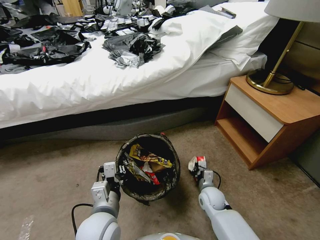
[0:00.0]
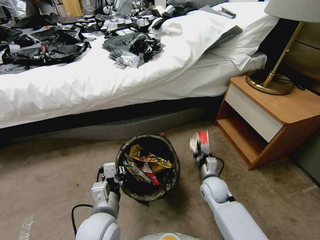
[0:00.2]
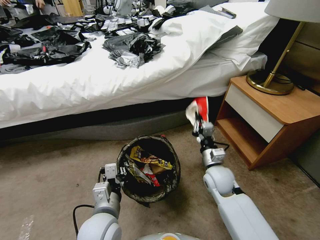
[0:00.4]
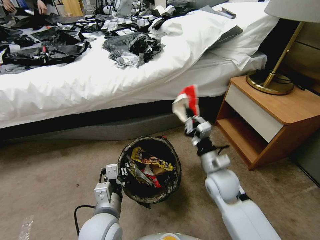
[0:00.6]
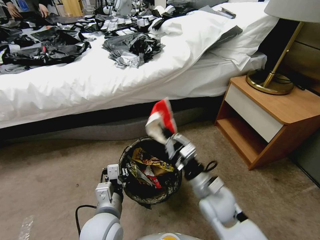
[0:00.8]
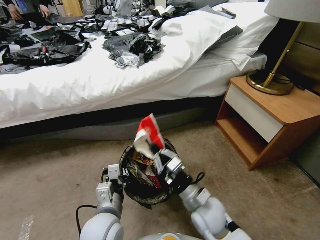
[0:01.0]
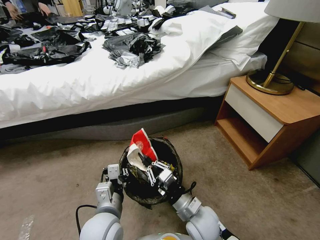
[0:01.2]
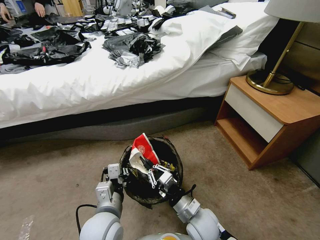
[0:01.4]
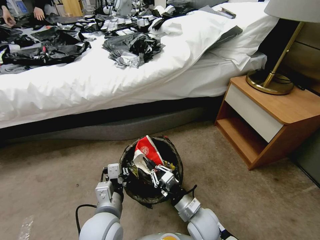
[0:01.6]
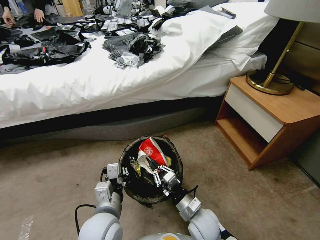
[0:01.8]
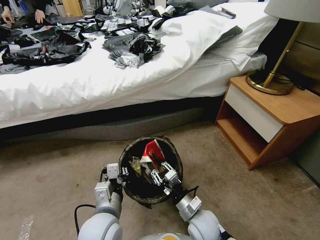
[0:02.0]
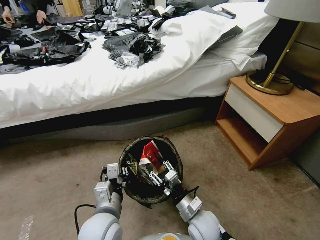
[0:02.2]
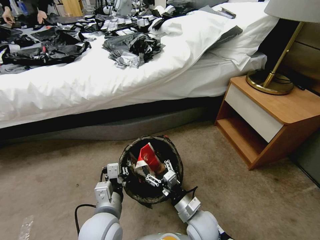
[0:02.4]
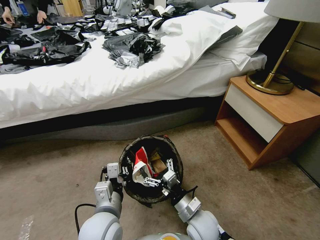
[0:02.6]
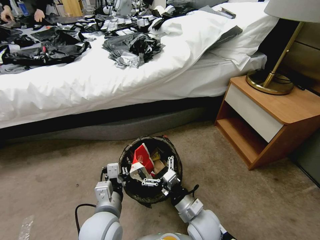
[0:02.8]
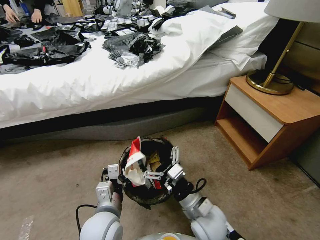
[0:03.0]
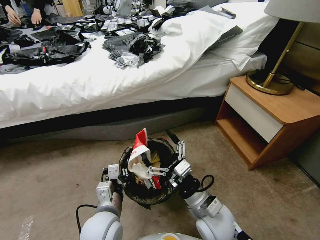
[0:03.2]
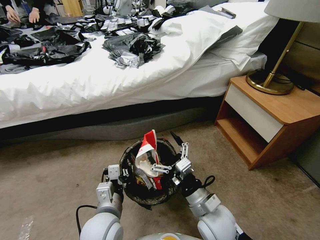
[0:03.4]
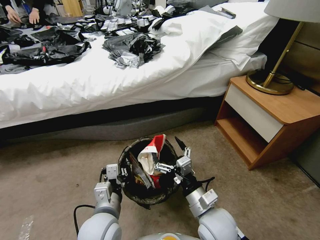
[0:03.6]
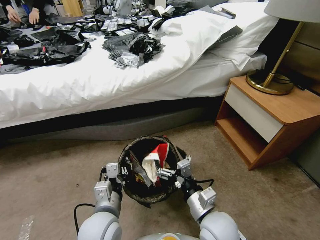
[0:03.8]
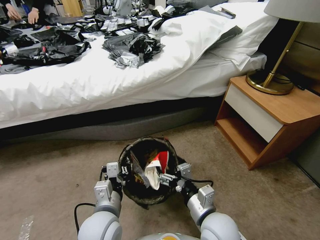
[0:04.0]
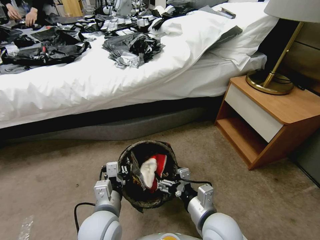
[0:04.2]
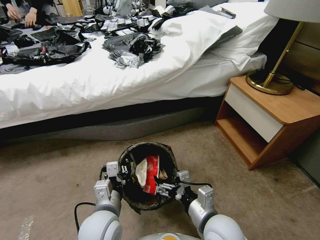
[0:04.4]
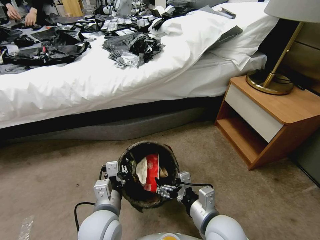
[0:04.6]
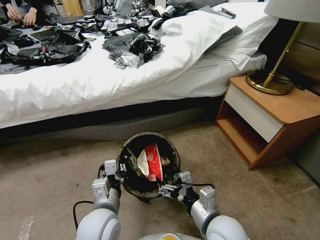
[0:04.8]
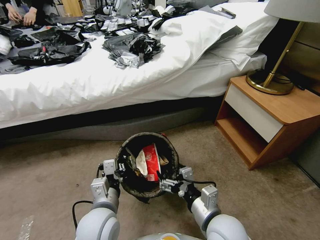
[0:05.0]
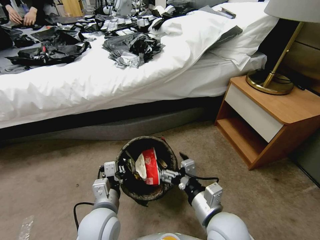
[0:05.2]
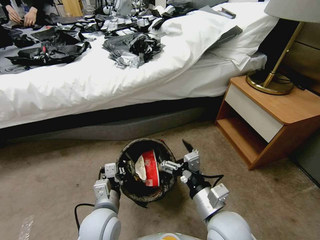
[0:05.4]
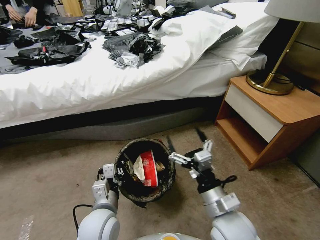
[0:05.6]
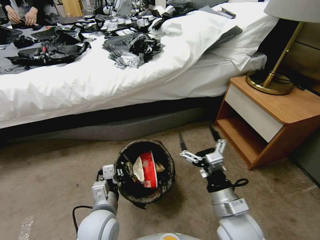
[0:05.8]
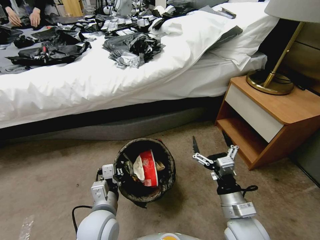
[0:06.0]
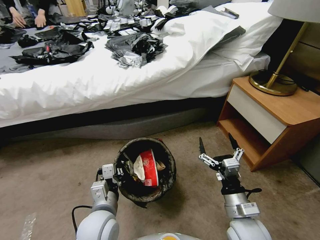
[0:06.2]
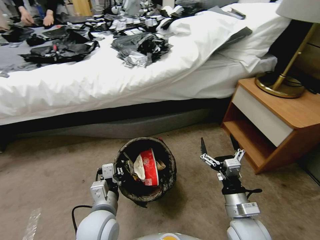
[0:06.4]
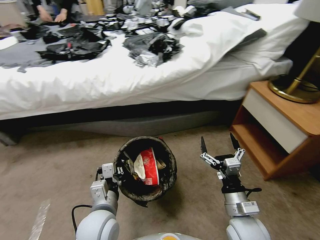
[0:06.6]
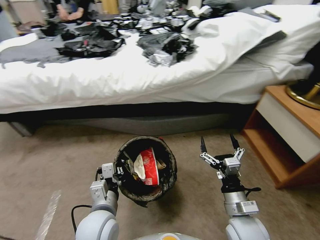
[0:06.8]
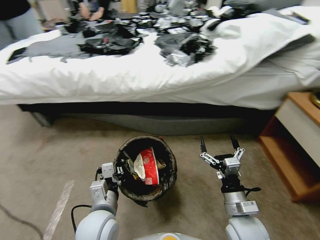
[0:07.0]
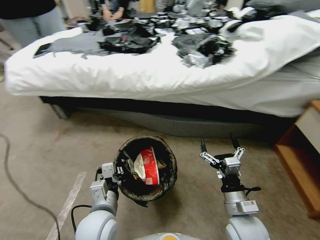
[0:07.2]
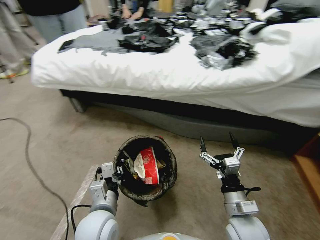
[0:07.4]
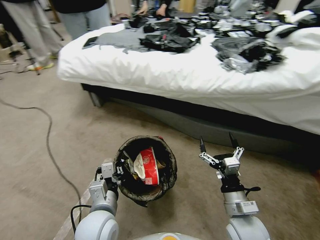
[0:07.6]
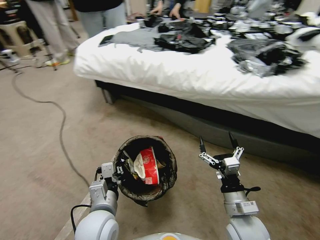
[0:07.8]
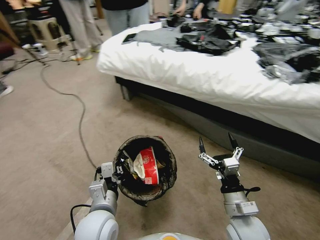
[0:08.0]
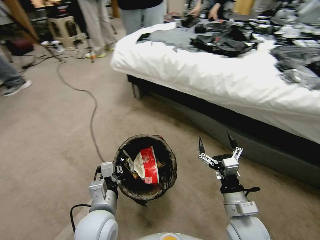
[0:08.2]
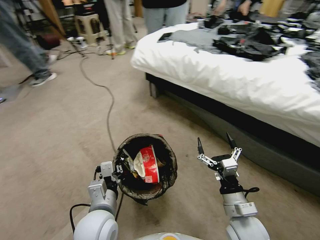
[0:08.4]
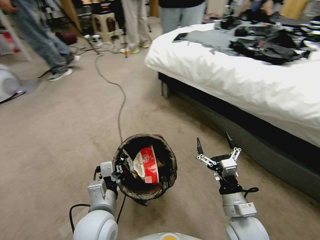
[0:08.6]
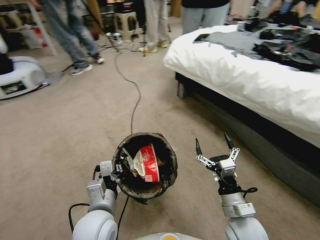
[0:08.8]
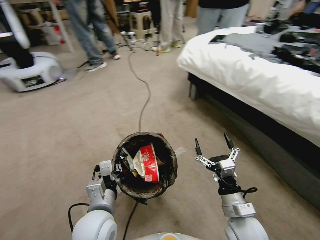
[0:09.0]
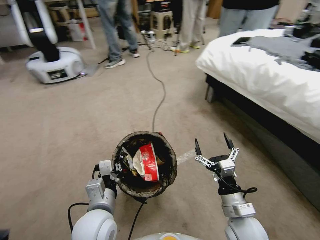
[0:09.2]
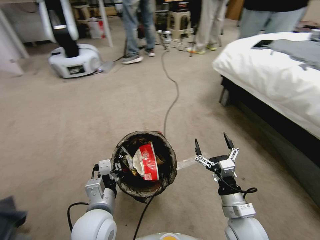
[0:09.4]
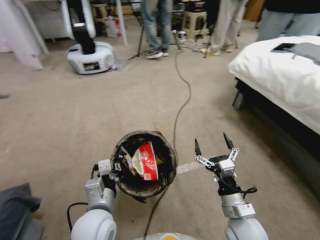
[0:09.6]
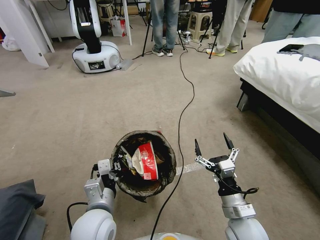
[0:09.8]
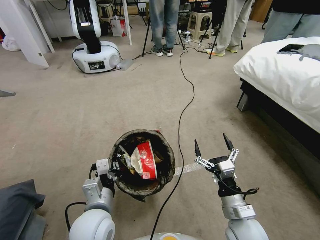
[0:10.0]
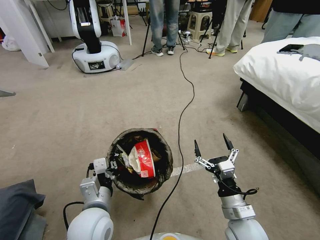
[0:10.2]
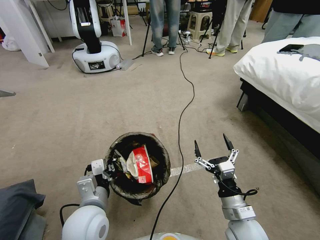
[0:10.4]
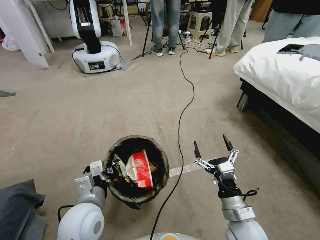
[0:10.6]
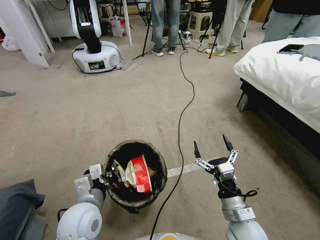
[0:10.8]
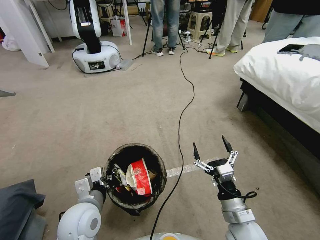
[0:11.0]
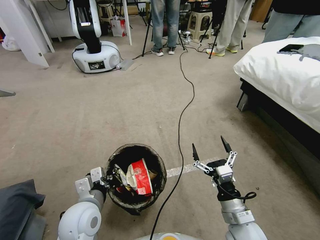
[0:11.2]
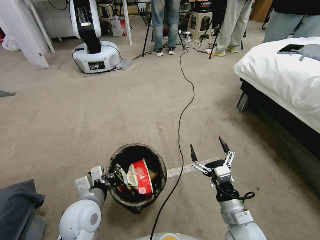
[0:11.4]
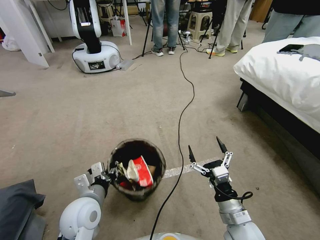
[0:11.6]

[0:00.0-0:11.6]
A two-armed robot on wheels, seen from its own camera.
Task of the whole recording: Pick up the trash bin, then pick up the garbage from the floor and place it into the trash bin.
0:00.0 to 0:01.4: The right gripper goes about 15 cm backward, upward and to the left.
0:01.4 to 0:02.8: The right gripper opens its fingers.
0:02.8 to 0:04.4: The right gripper goes about 10 cm upward.
0:05.8 to 0:07.2: The right gripper goes some 5 cm downward.
0:10.2 to 0:11.6: The left gripper moves some 5 cm.

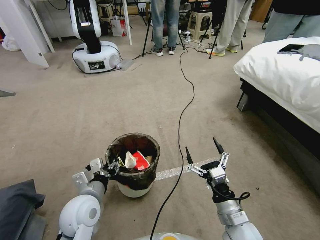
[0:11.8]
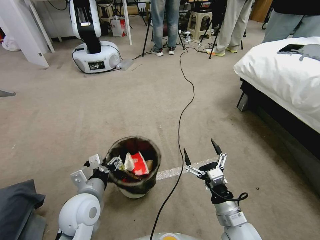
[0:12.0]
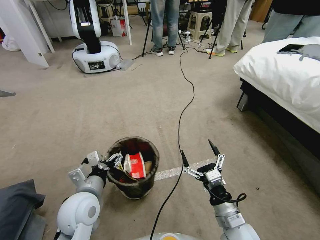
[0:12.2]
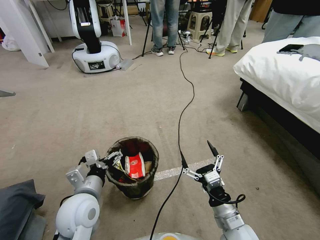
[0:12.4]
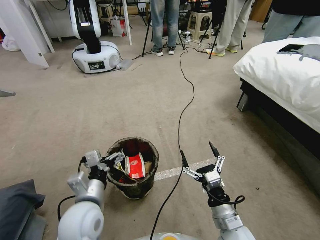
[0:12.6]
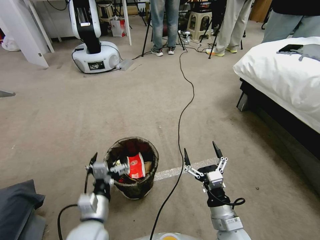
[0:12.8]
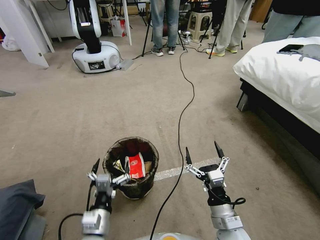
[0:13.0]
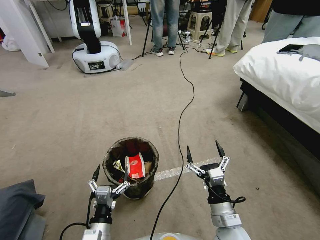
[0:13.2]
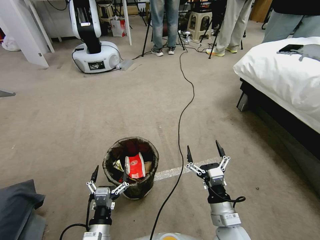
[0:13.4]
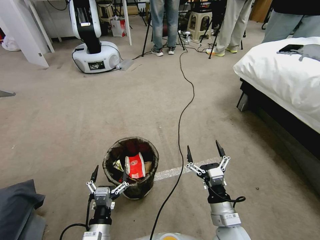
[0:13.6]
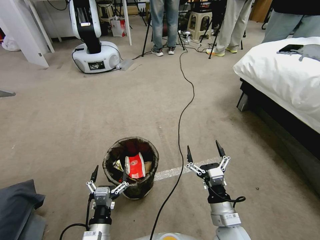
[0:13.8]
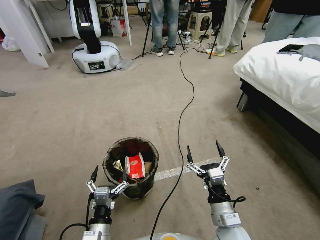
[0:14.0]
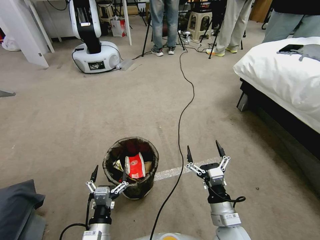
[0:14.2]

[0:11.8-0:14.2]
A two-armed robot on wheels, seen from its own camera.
Task of the whole recording: Pick up the trash bin, then pick up the garbage from the floor and place it into the trash bin.
0:11.8 to 0:13.0: The left gripper travels backward and downward by some 10 cm, and opens.
0:13.0 to 0:14.2: The grippers stay close to where they were, moving slightly.
